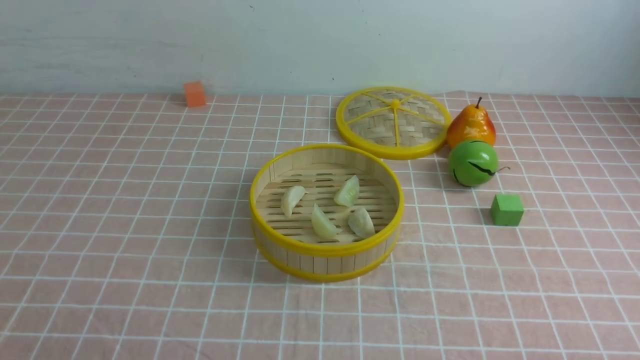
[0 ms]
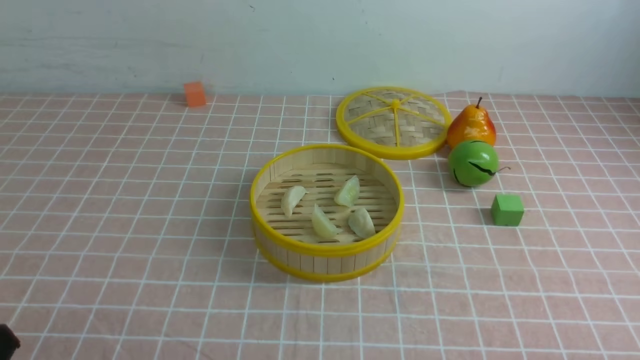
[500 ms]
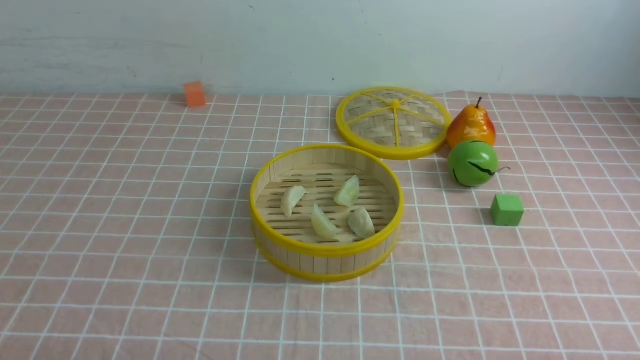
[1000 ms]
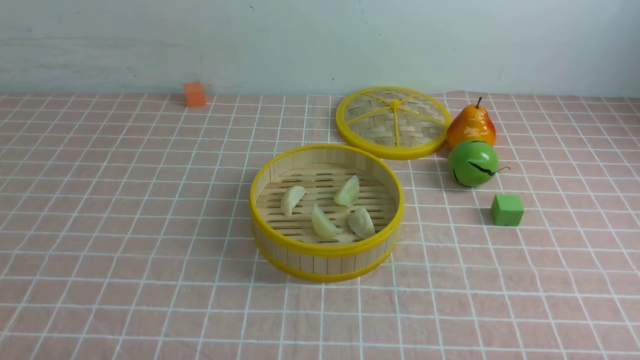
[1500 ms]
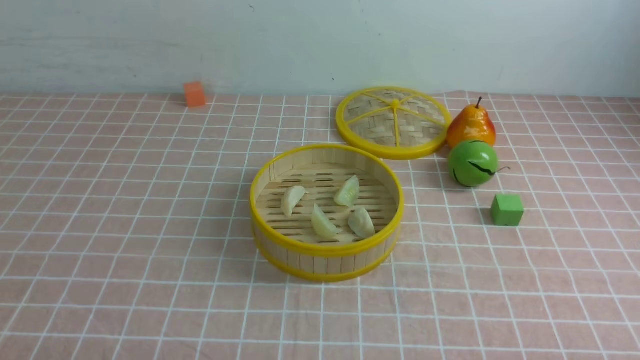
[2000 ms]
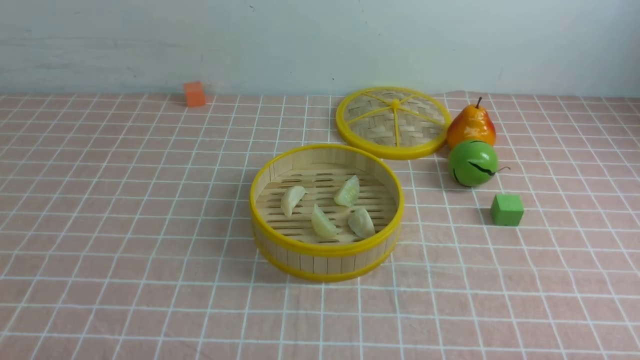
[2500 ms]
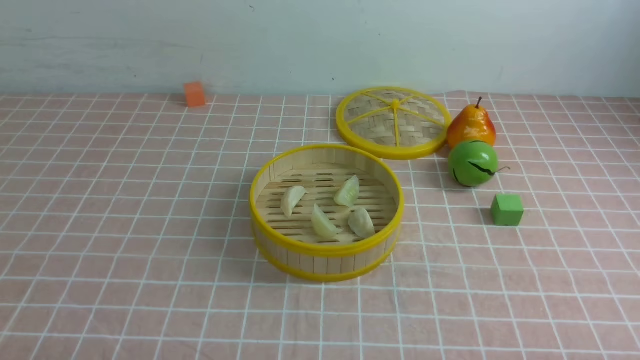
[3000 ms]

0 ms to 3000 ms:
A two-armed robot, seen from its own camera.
Task of the whole recording: put the dumplings into the steamer on the table with the pink tablecloth.
1500 ms to 3000 ms: The two grippers keep their place.
